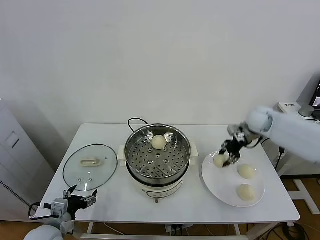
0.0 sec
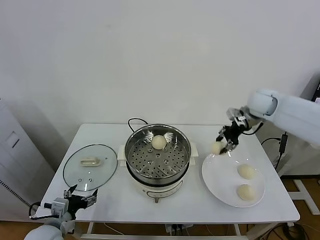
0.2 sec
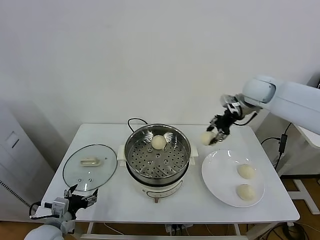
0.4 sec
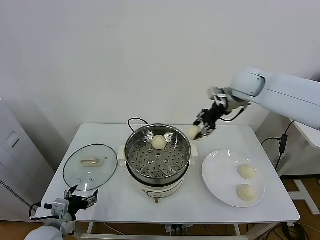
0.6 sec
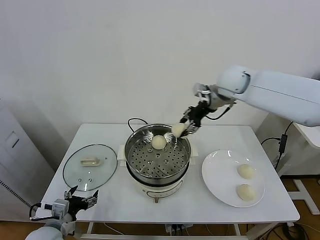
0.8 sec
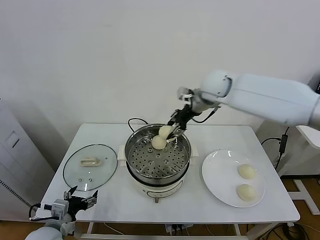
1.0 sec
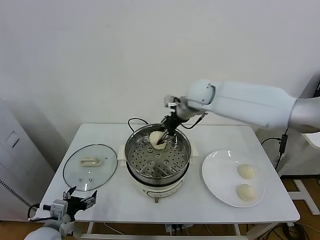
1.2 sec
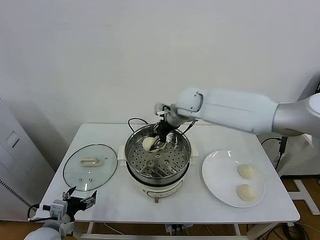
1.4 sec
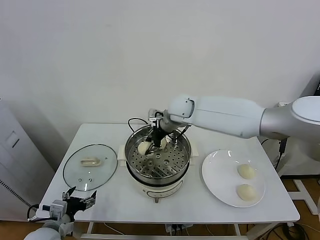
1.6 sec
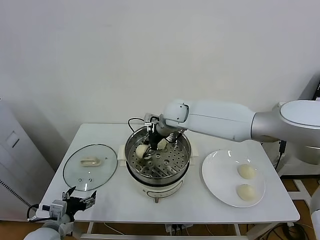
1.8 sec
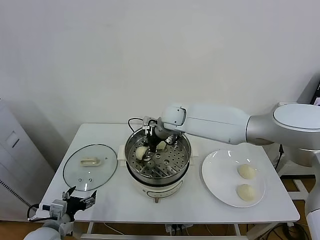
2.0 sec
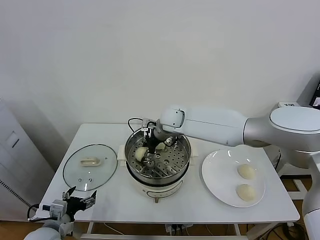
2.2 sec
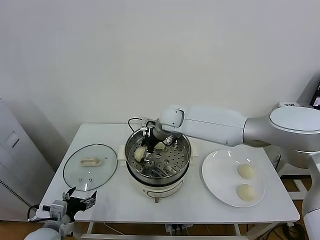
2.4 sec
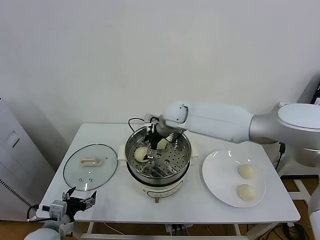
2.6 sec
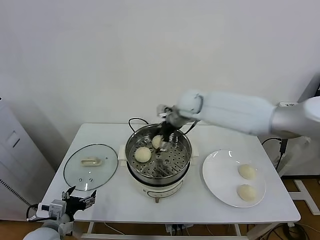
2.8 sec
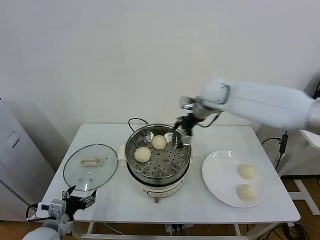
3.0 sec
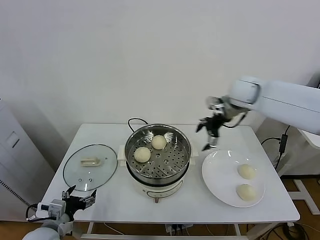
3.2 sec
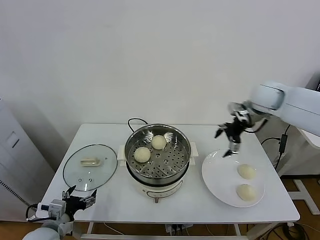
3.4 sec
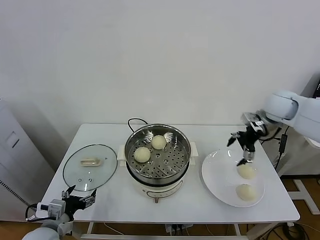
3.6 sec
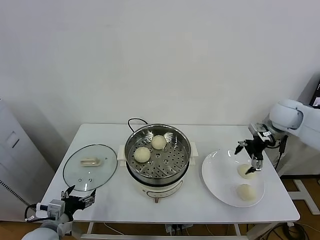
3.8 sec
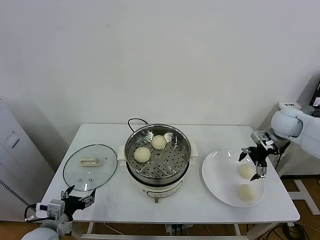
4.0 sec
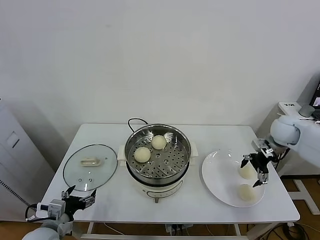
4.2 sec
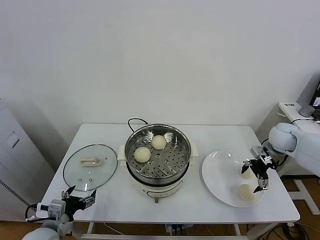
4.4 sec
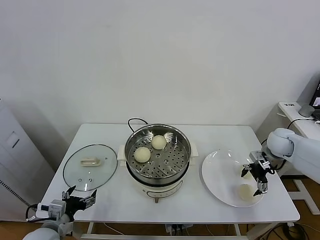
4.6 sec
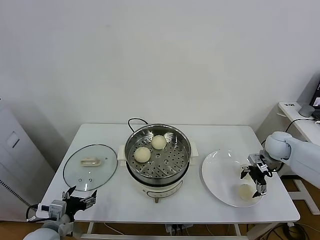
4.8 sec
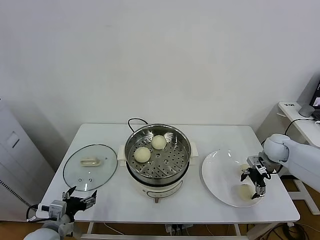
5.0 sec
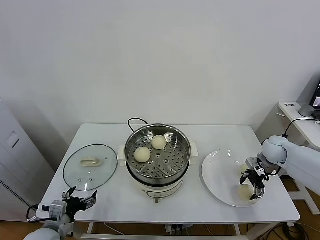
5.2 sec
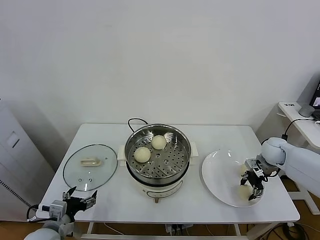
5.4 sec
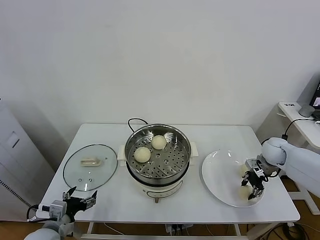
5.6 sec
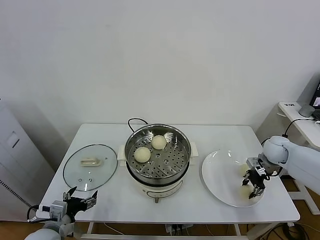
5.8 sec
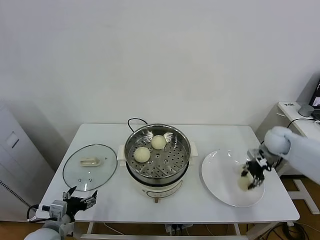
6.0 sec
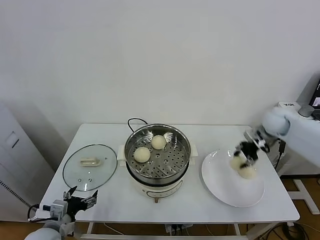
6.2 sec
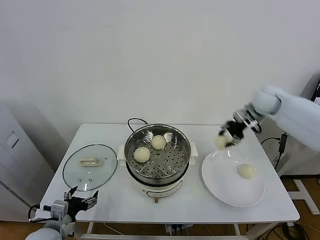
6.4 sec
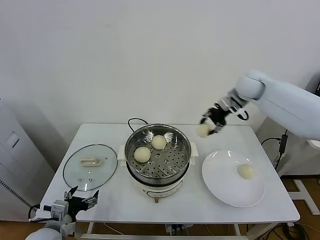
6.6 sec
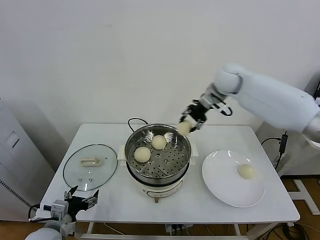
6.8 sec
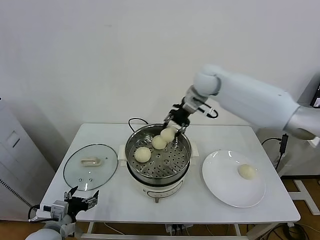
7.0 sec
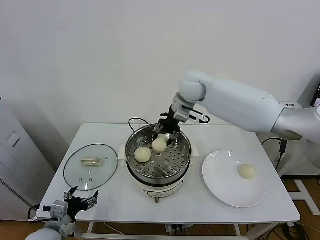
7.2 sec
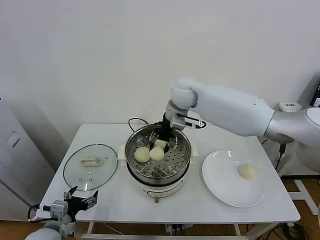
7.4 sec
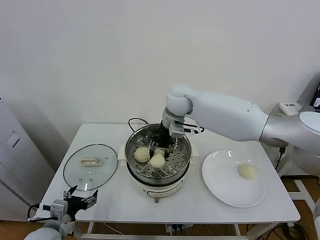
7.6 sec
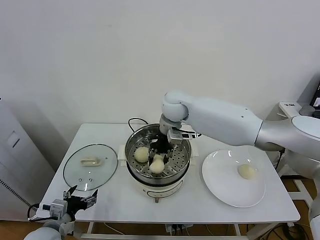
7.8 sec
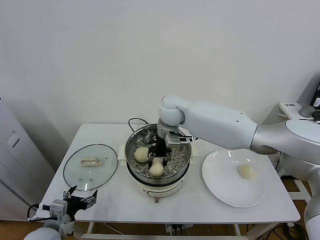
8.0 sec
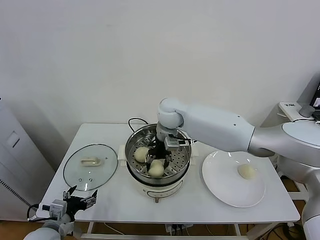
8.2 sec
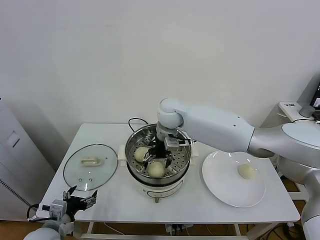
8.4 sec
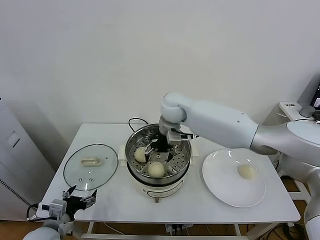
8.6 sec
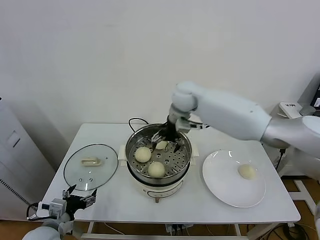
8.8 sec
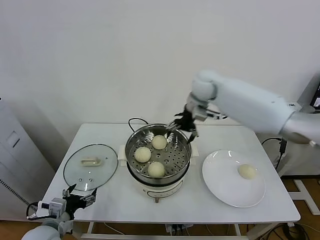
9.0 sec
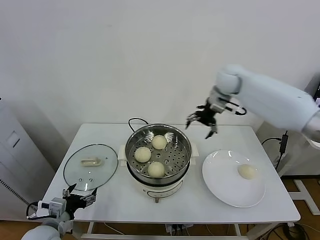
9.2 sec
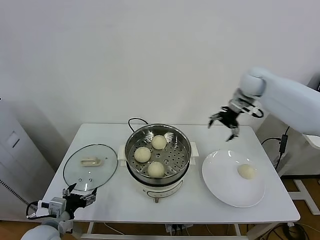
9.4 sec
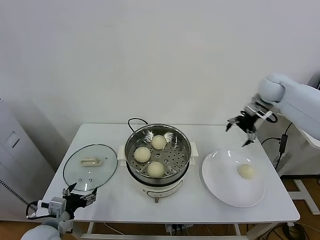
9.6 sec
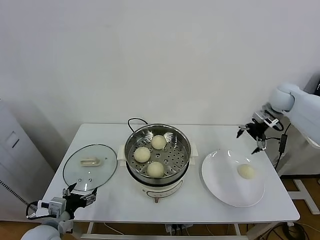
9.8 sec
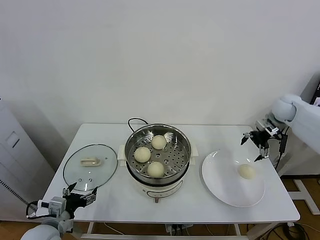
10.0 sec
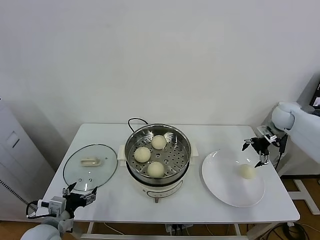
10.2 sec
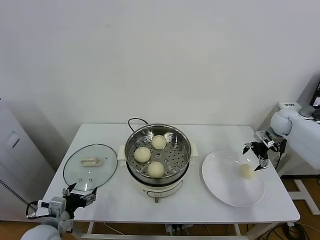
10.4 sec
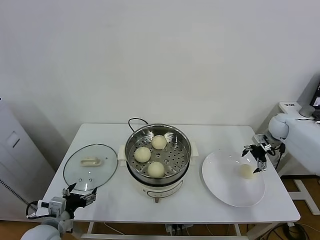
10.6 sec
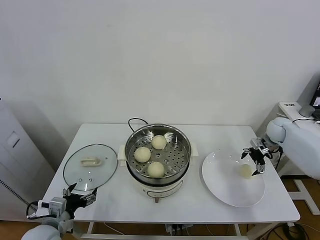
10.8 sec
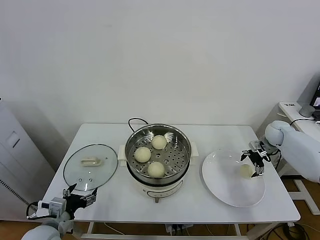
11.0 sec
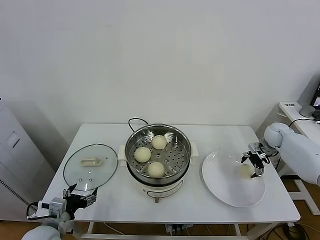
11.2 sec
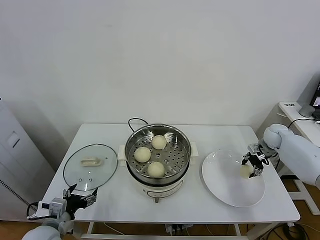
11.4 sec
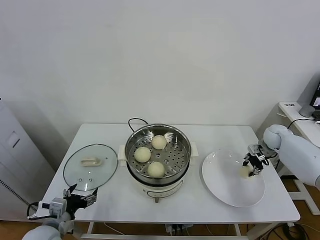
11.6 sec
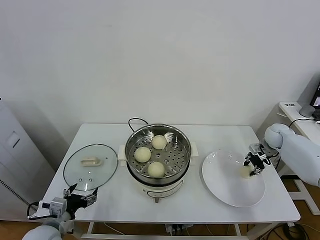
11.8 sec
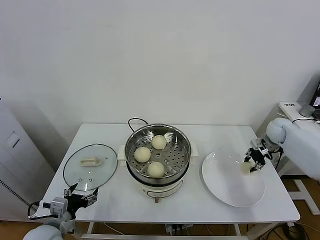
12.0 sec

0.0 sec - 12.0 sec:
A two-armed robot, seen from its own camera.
Task of the whole recording: take steamed baozi put them in steamer.
Step, 0.0 sec - 2.4 sec: Place the baozi on the steamer with right gripper.
Step, 2.6 sec - 5.4 sec: Grasp the baozi in the plate with right gripper.
Step, 5.6 sec - 8.4 sec: Place the baozi on the steamer with right gripper.
Step, 8.6 sec - 11.4 sec: Grasp the baozi in the plate with right gripper.
0.0 sec - 1.6 sec: The right gripper heads to the left, covering some 30 cm.
1.6 sec - 3.0 sec: The right gripper goes about 15 cm to the right and upward, and opens.
3.0 sec - 4.4 sec: The right gripper travels to the right and downward by approximately 25 cm.
4.4 sec - 6.0 sec: The right gripper closes its fingers.
6.0 sec - 7.6 sec: The right gripper moves to the left, some 35 cm.
7.6 sec - 9.0 sec: The right gripper travels to the right by approximately 10 cm, and opens up.
9.0 sec - 10.4 sec: The right gripper goes some 35 cm to the right and downward.
10.4 sec - 12.0 sec: The right gripper closes.

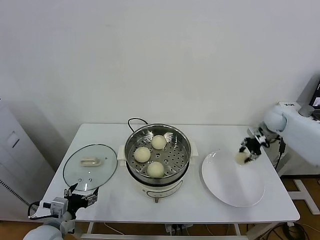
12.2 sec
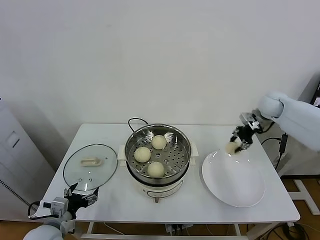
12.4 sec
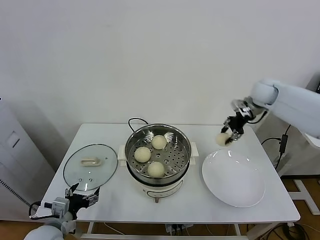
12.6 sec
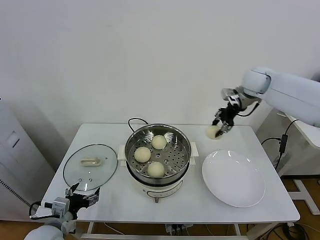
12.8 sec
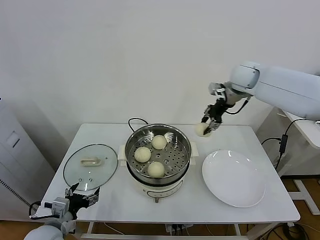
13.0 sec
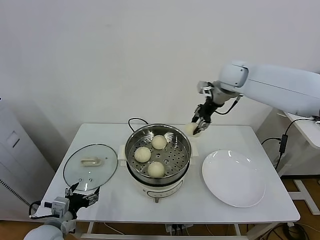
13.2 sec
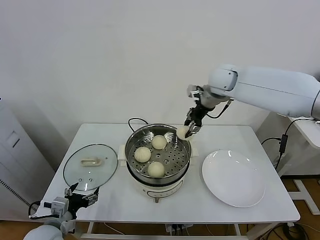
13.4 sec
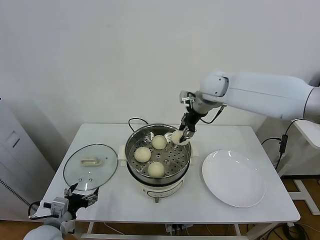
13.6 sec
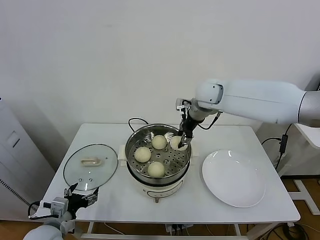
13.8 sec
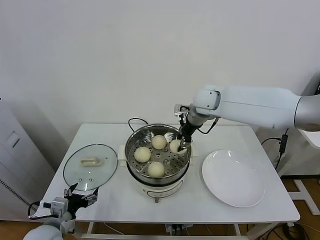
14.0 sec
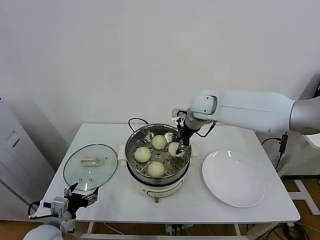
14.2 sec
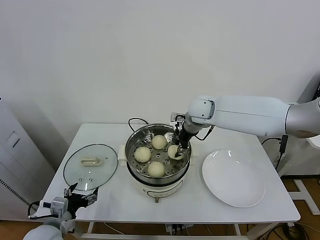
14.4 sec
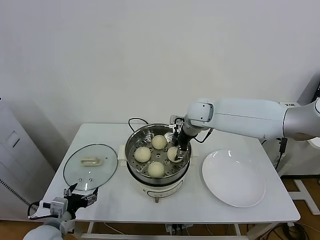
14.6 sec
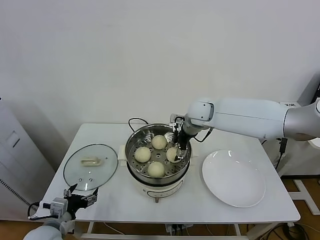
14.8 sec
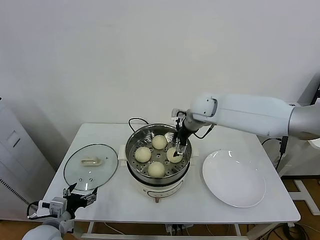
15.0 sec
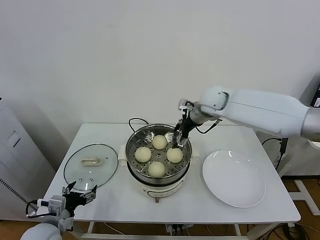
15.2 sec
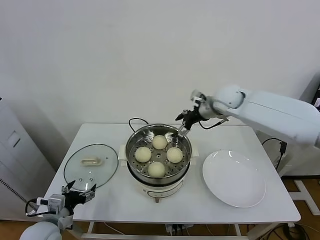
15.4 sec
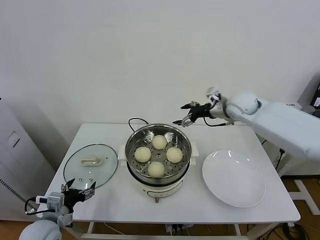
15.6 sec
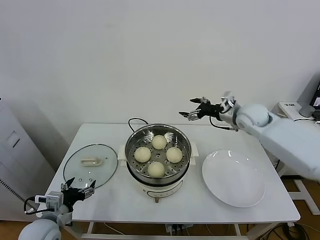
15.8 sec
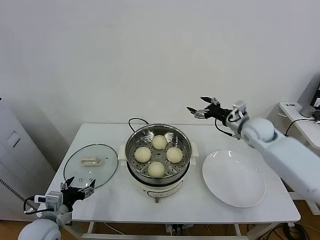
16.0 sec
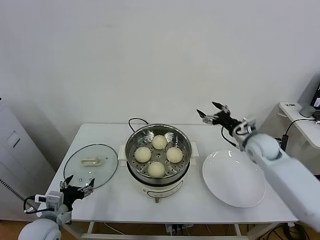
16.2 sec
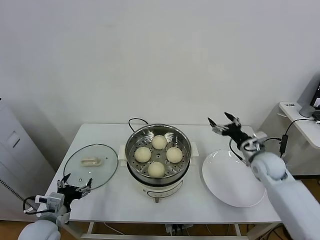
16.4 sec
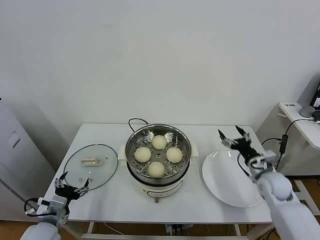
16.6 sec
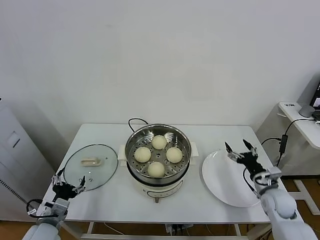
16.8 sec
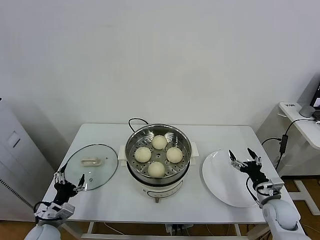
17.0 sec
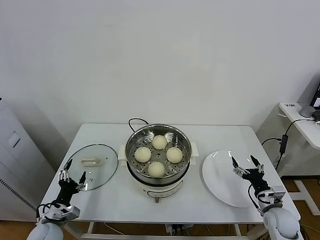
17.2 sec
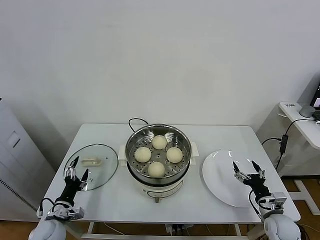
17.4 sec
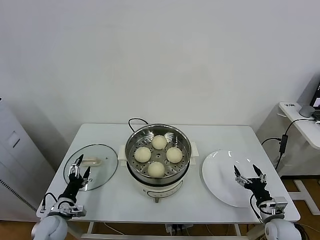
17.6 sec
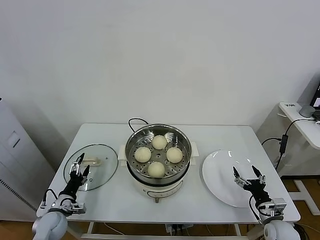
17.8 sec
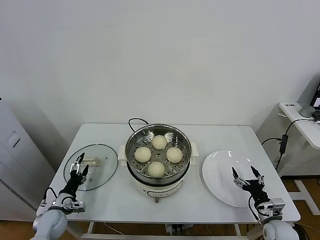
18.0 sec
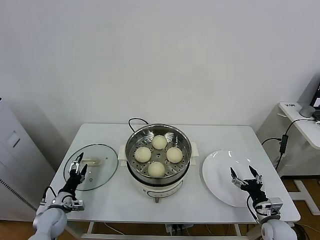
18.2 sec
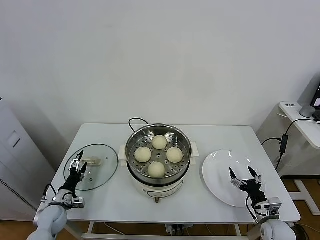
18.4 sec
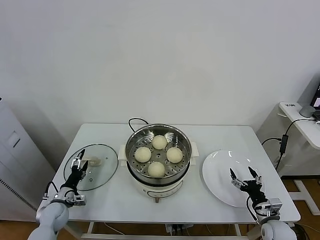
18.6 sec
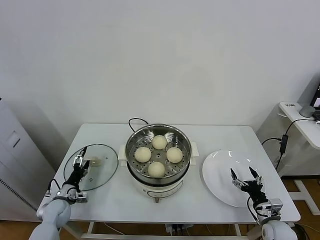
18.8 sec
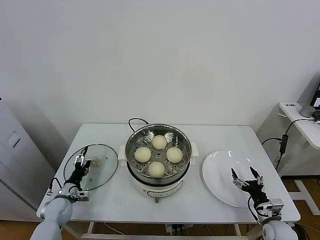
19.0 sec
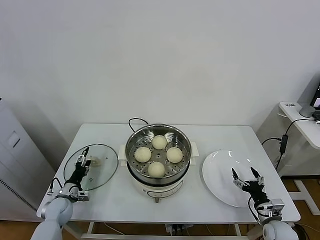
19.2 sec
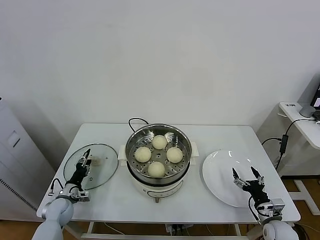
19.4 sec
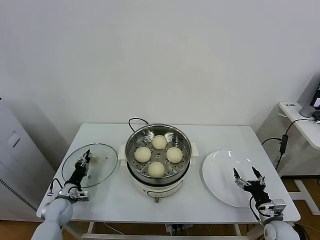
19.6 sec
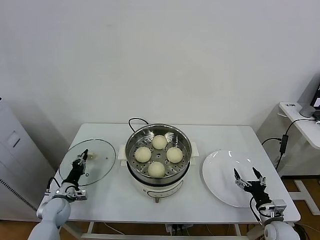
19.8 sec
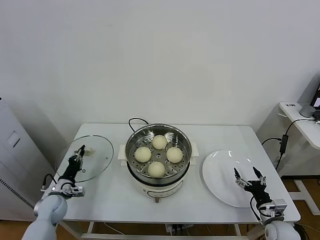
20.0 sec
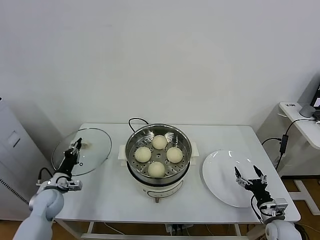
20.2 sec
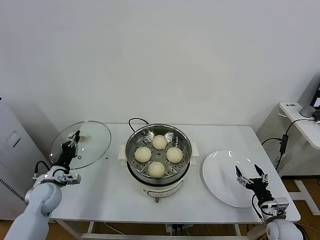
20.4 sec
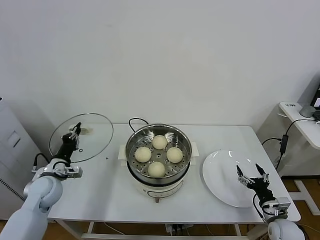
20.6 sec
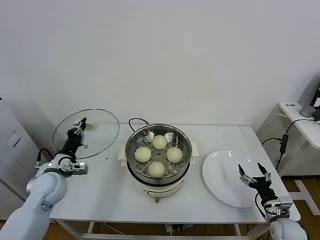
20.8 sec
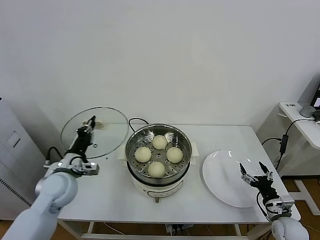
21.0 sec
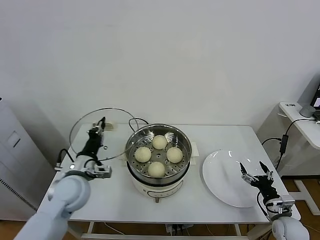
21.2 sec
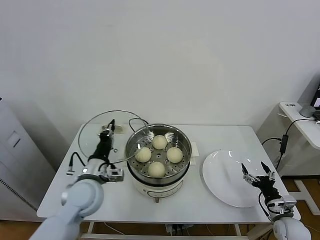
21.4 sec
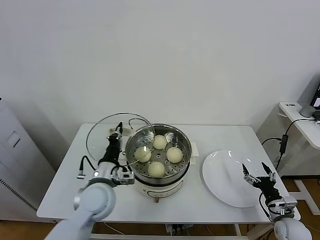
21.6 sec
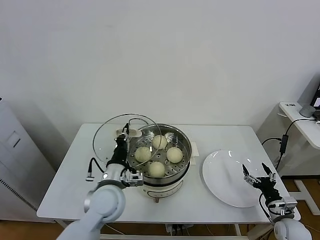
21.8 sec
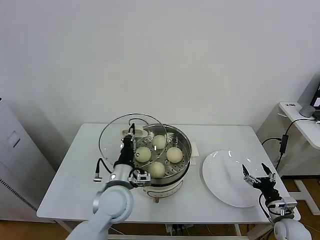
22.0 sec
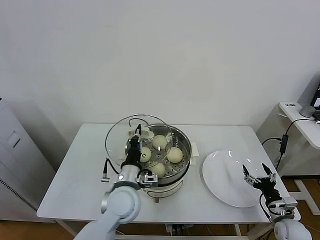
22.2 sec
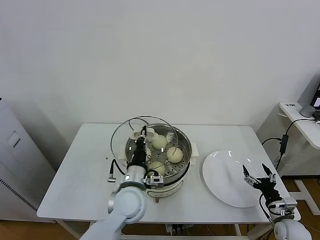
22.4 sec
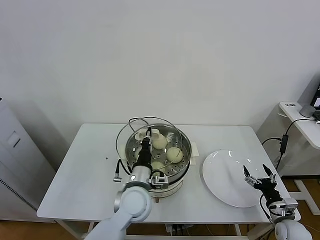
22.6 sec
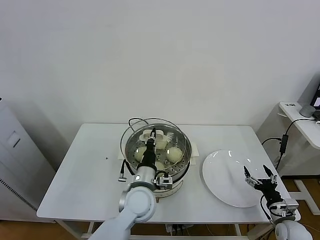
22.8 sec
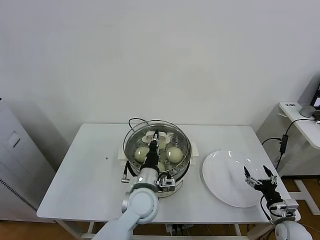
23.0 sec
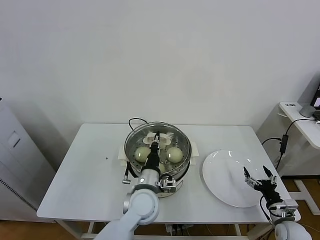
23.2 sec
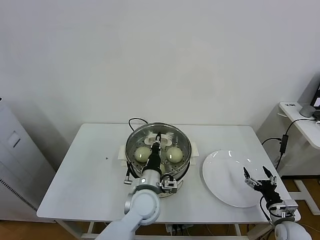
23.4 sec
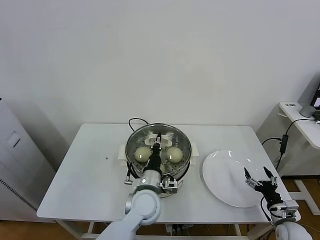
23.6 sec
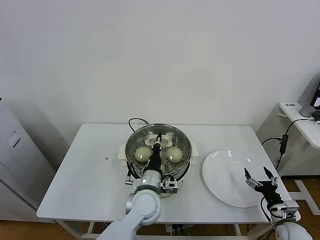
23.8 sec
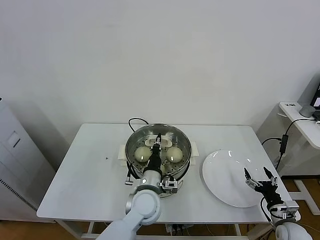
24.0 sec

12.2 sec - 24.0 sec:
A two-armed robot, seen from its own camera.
Task of the whole recording: take steamed baozi put them in steamer.
Step, 12.2 sec - 14.8 sec: Place the baozi on the steamer with right gripper.
Step, 15.0 sec - 19.8 sec: Grasp the pot lid with left gripper.
12.2 sec - 13.6 sec: The right gripper travels to the left and upward by approximately 30 cm.
13.6 sec - 15.2 sec: The right gripper opens its fingers.
15.2 sec - 16.6 sec: The right gripper heads downward, to the right and backward, covering about 35 cm.
16.6 sec - 18.2 sec: The left gripper shifts roughly 15 cm downward, forward and to the left. Meanwhile the right gripper travels downward and backward by approximately 15 cm.
18.2 sec - 19.6 sec: The left gripper closes.
19.6 sec - 21.0 sec: The left gripper travels upward and to the right by about 25 cm, and closes.
21.0 sec - 22.6 sec: The left gripper moves to the right, roughly 25 cm.
22.6 sec - 24.0 sec: The grippers stay close to where they were, moving slightly.
